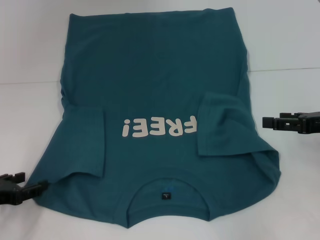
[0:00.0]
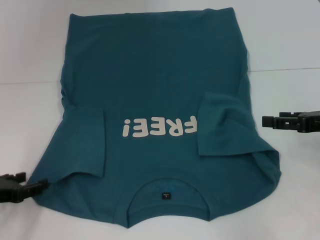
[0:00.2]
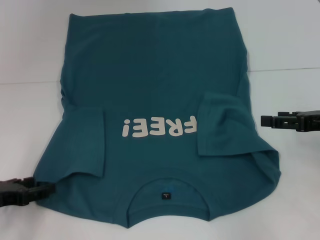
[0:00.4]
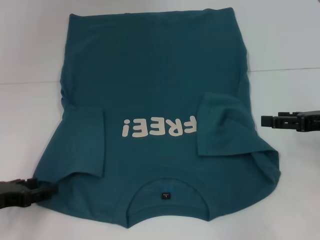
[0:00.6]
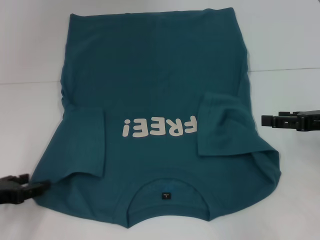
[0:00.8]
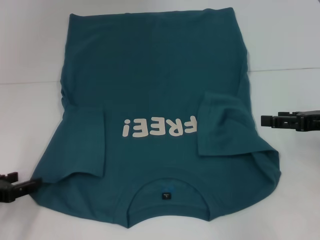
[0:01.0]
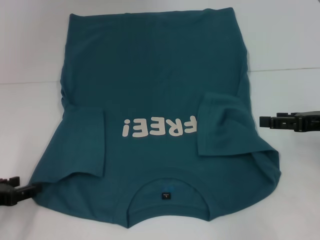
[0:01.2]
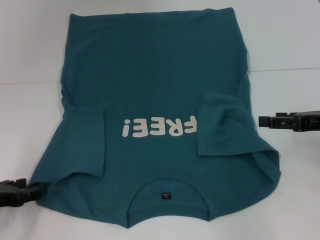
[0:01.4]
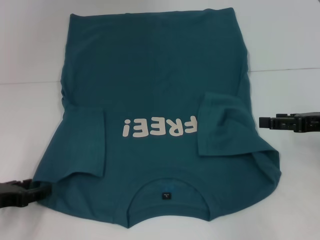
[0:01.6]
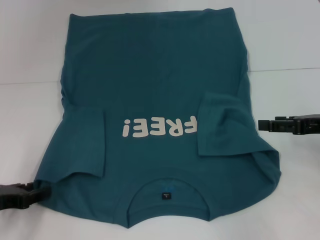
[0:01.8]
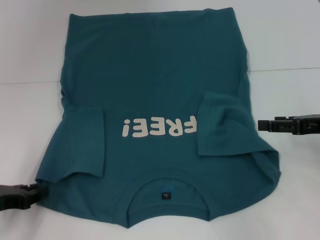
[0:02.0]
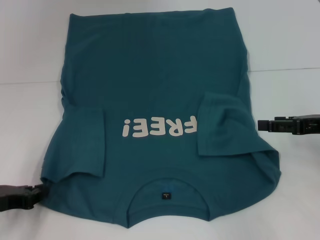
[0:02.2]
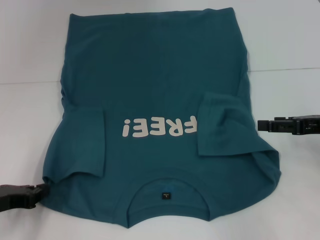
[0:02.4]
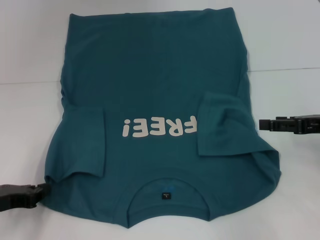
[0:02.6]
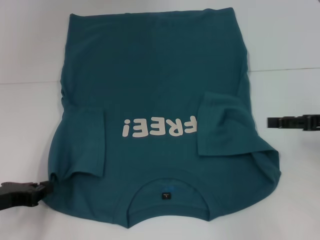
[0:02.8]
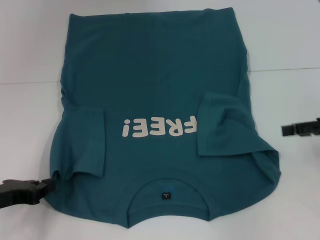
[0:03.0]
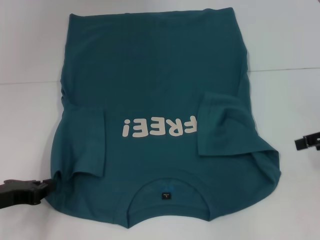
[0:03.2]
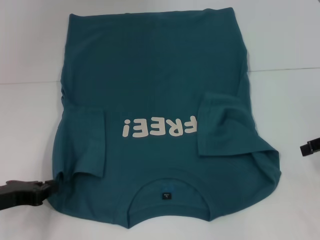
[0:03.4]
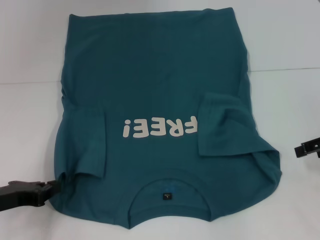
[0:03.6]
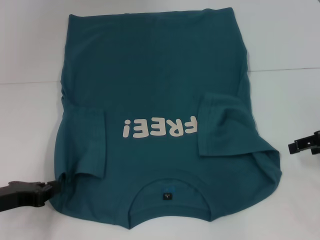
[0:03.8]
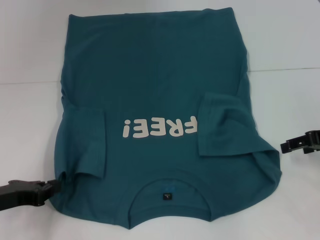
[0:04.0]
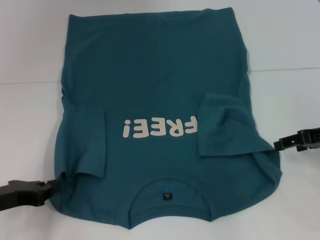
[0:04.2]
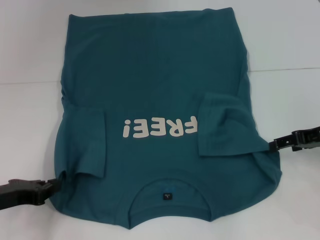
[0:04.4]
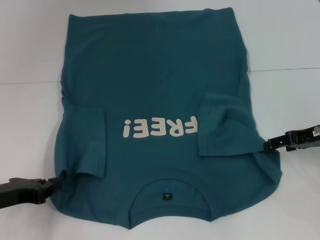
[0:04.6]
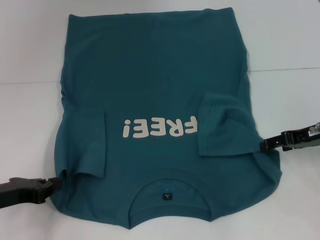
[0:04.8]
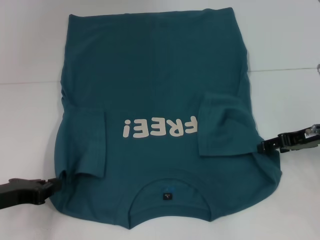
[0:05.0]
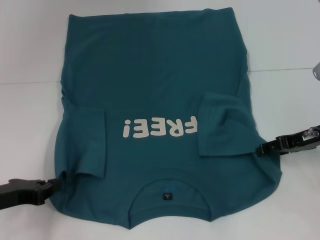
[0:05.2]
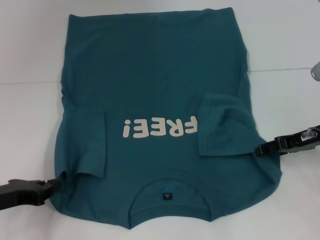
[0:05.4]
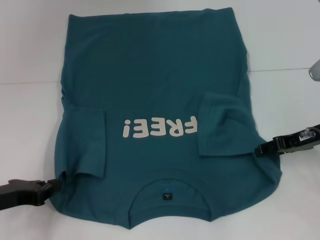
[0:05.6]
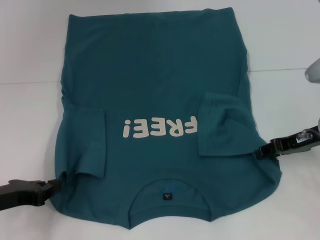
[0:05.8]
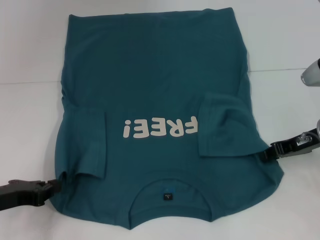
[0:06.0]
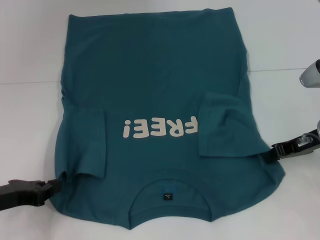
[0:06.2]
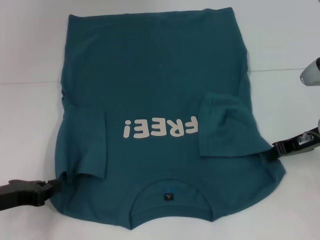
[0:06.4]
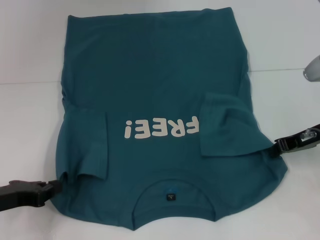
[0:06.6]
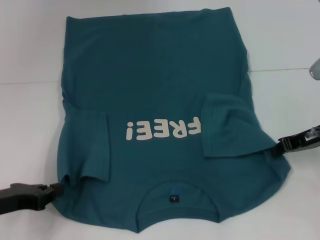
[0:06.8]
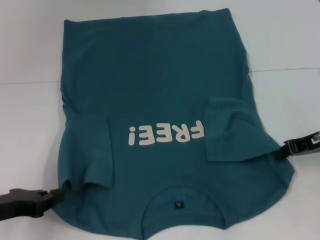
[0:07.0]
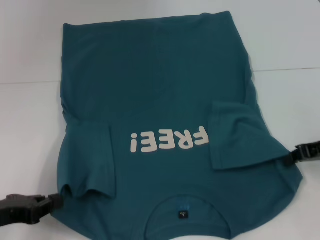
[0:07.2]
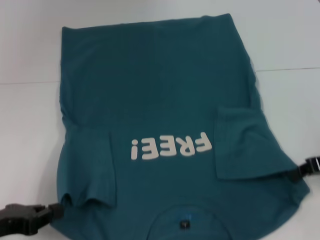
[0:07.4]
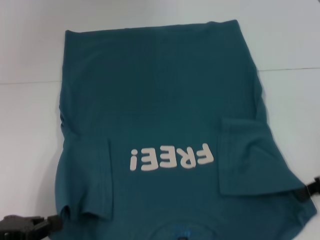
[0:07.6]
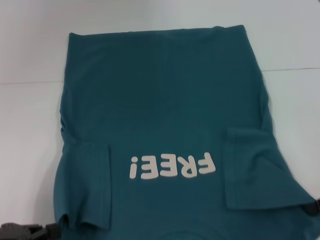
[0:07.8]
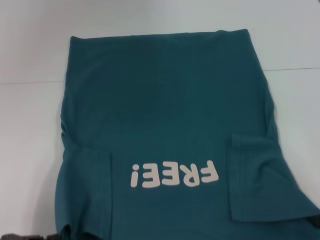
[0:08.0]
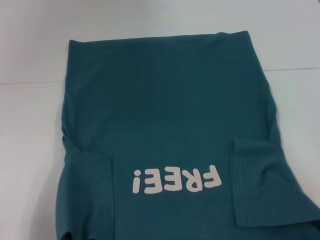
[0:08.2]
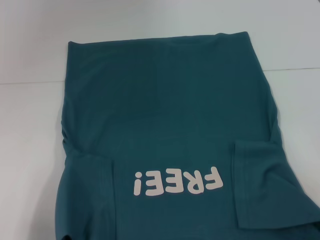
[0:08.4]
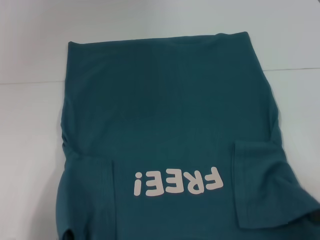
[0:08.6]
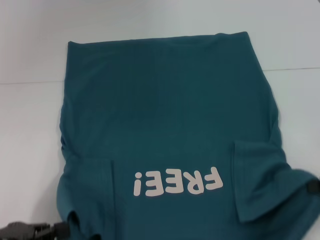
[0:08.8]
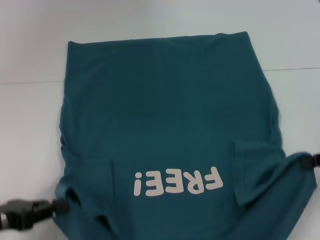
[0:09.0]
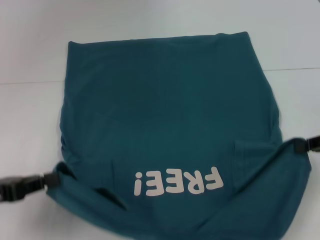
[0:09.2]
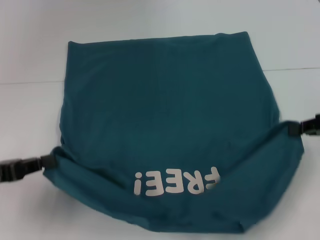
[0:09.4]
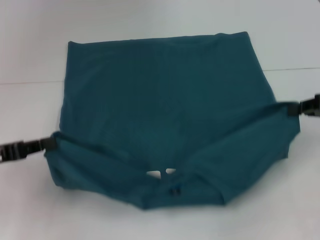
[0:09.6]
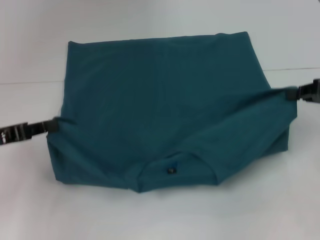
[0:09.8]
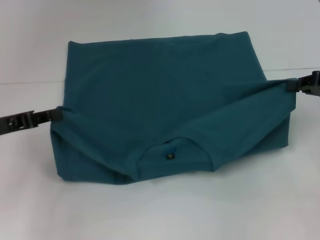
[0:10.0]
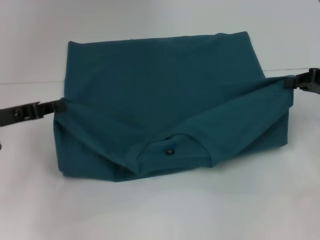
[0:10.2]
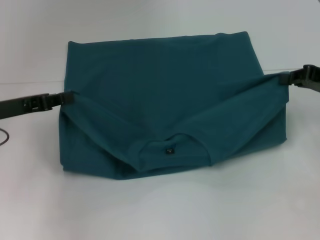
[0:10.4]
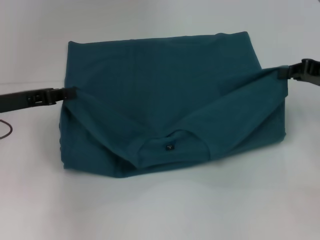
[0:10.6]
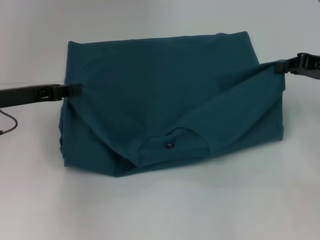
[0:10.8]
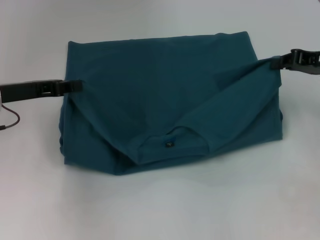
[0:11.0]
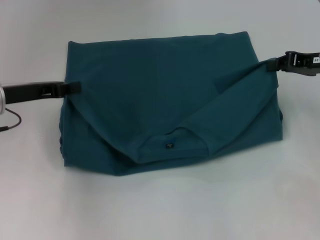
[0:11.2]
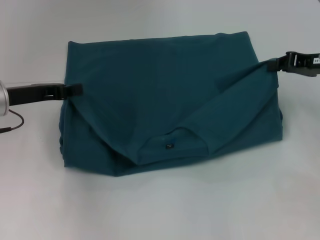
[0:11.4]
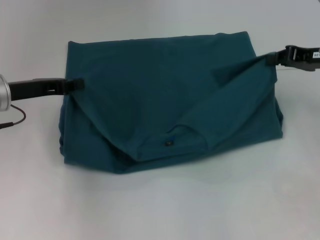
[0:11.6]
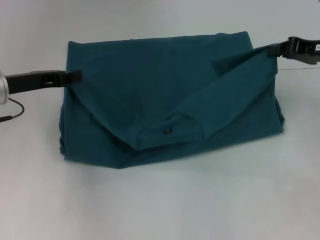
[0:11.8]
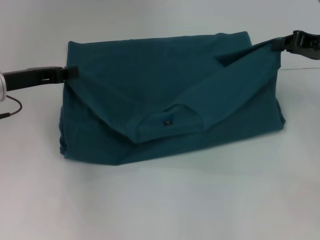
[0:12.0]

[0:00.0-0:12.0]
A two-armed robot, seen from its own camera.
Step, 0:00.0 to 0:02.4: Grab the bottom left corner with your left hand.
Step, 0:02.6 to 0:05.8: Grab the bottom right corner with your right hand.
0:00.0 to 0:01.6: There are only small adjustments of the grippers.
0:01.6 to 0:03.0: The left gripper closes up.
0:03.0 to 0:04.4: The right gripper shifts by roughly 5 cm.
0:04.4 to 0:06.0: The right gripper closes up.
0:06.0 to 0:07.6: The right gripper moves backward and to the right, roughly 10 cm, and closes up, while the left gripper moves backward, approximately 5 cm.
0:09.0 to 0:10.4: The left gripper moves forward, approximately 15 cm; the right gripper travels forward by roughly 10 cm.
0:10.4 to 0:12.0: The left gripper ends up about 5 cm from where it was.

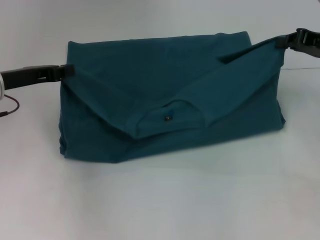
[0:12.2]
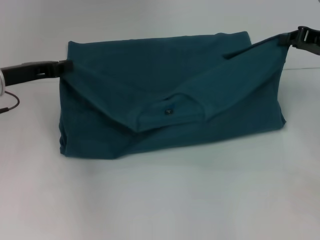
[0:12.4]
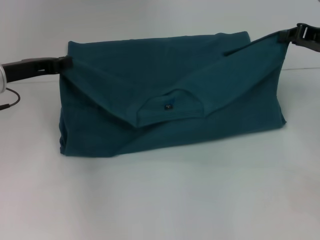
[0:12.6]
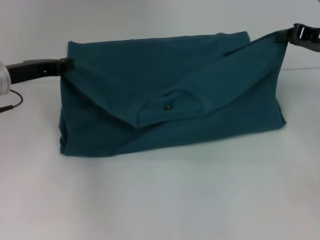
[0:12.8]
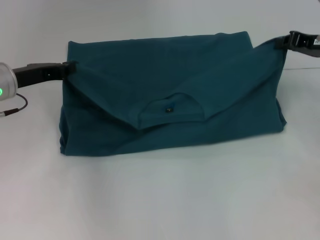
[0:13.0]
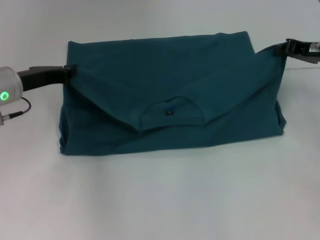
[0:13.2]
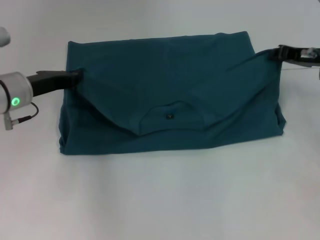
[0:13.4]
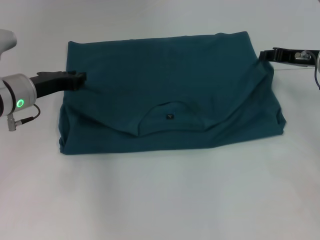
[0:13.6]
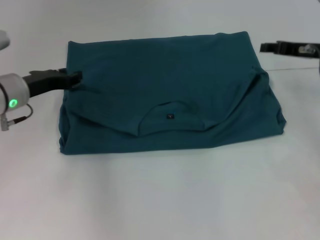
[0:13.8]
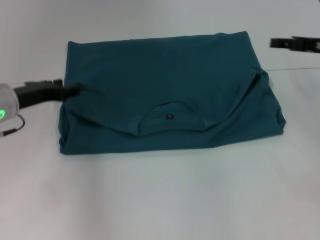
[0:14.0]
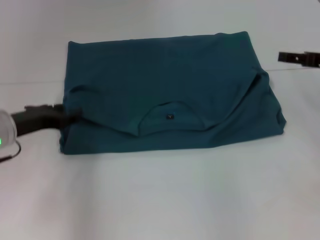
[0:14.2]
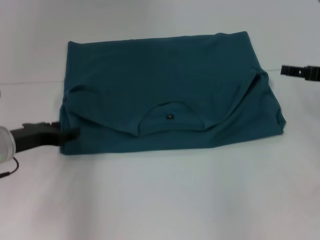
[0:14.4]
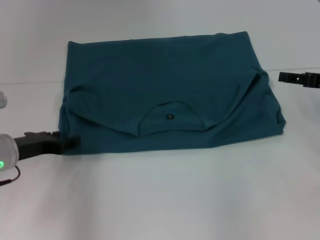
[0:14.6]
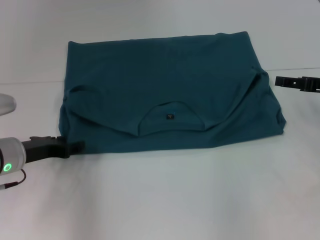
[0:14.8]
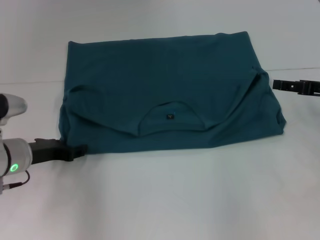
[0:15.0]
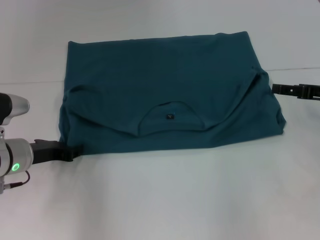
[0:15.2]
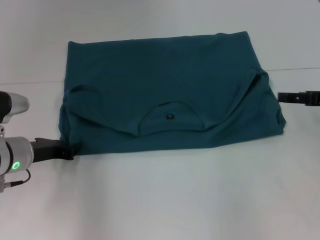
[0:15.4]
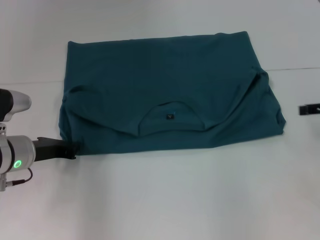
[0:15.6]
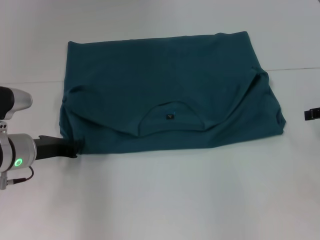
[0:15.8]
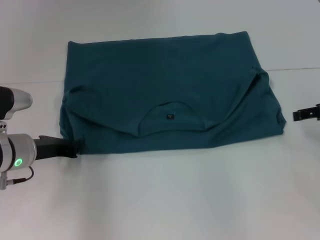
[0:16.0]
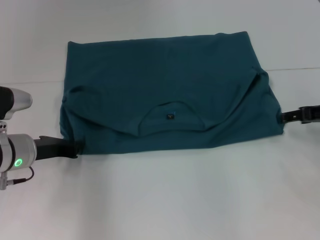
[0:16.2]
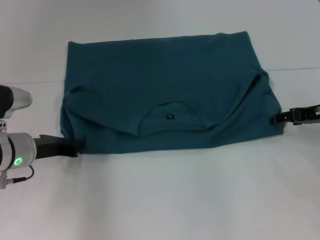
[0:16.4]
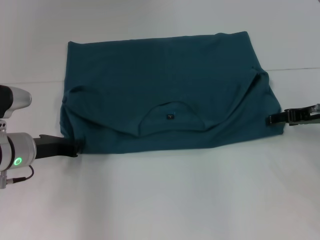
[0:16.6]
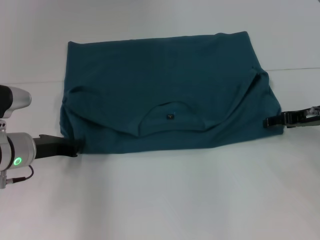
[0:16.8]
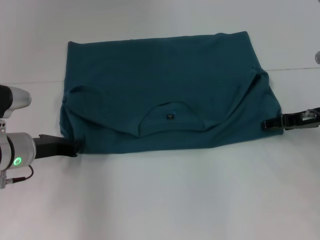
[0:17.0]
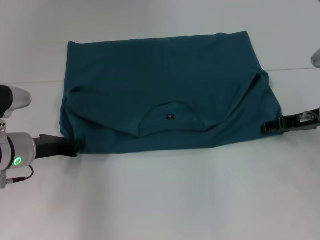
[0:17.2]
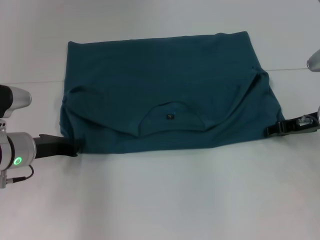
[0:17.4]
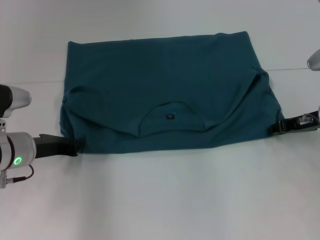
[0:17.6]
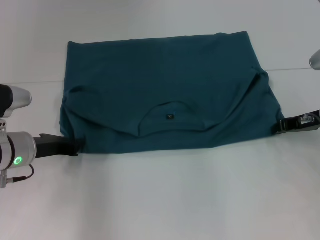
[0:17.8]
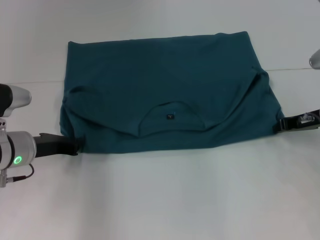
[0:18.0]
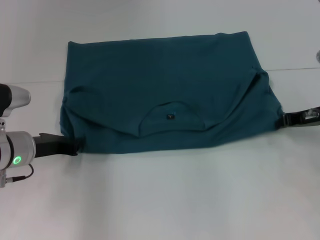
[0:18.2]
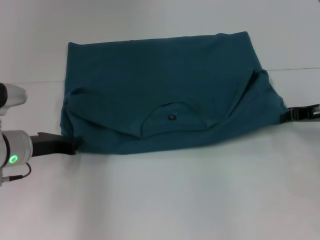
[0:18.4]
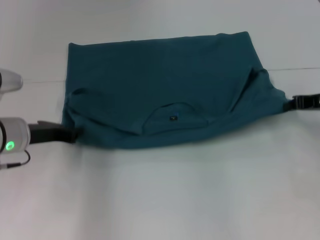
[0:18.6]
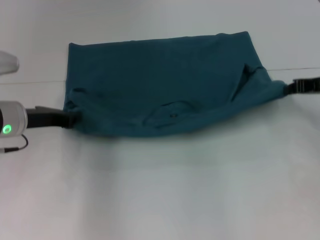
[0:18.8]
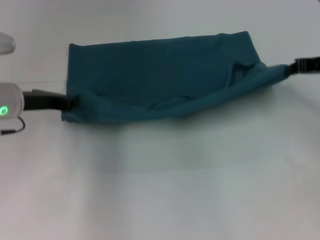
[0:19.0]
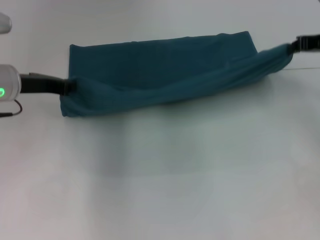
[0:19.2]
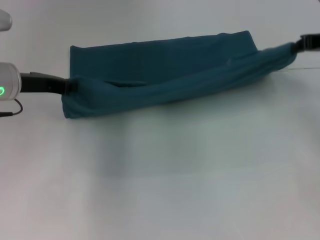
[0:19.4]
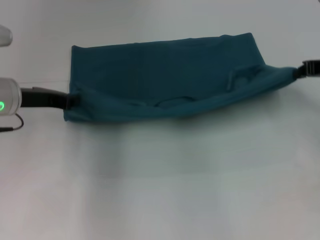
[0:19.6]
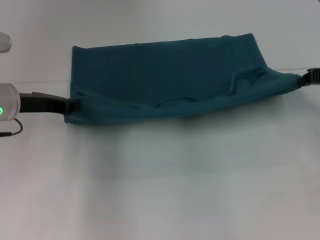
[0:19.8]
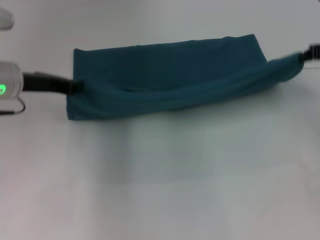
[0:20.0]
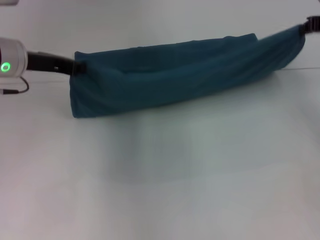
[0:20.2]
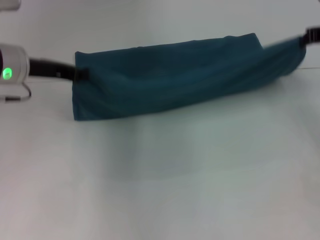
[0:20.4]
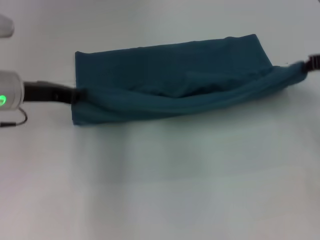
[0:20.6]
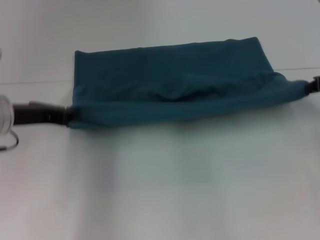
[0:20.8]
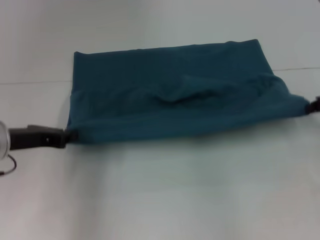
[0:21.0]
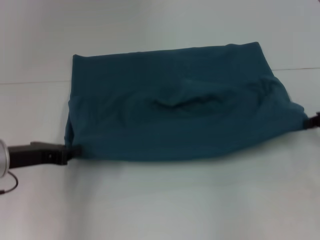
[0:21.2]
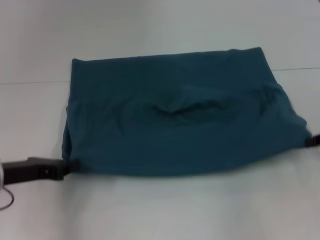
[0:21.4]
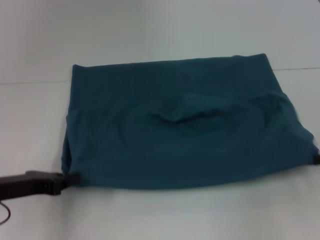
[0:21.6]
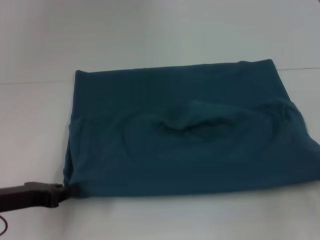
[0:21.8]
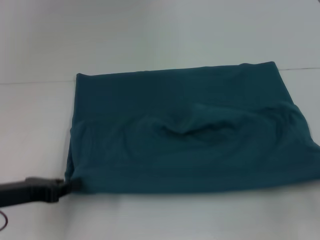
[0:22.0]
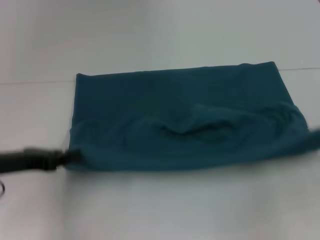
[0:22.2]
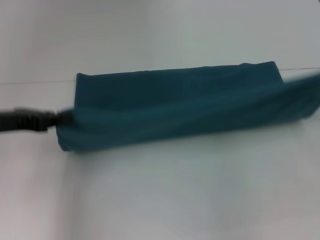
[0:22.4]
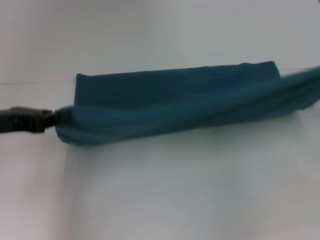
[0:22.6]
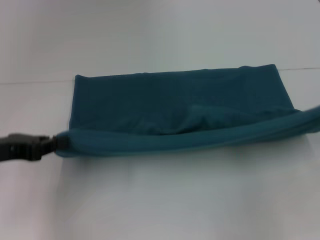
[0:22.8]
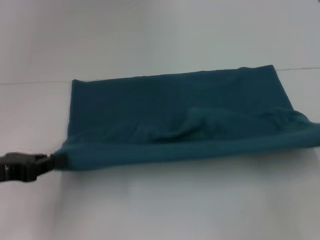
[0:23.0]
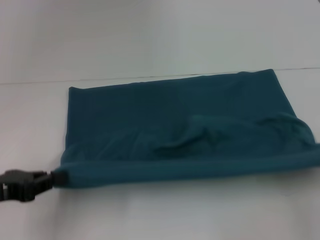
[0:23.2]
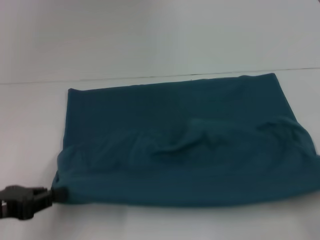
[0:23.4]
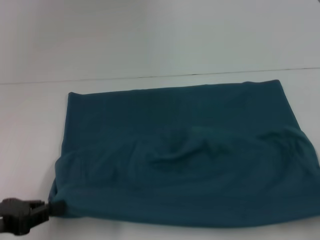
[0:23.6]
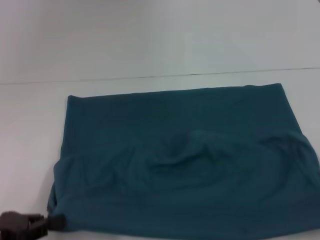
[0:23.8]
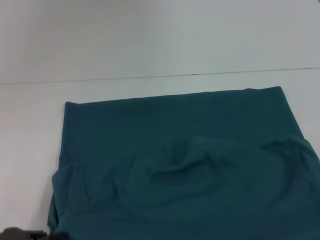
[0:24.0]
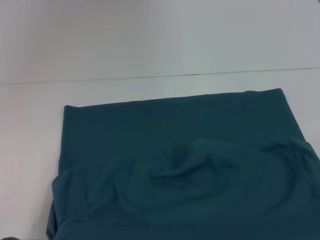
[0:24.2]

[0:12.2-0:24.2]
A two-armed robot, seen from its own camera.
Step, 0:13.8 to 0:21.6: Pull the clothes with your left hand.
Step, 0:13.8 to 0:21.6: Pull the clothes with your right hand.
0:12.2 to 0:13.8: The grippers move only a little.
0:13.8 to 0:15.2: The left gripper shifts about 10 cm backward and downward, while the right gripper travels backward by some 10 cm, and opens its fingers.
0:15.2 to 0:16.6: The left gripper closes up.
0:16.6 to 0:18.2: The right gripper closes up.
0:18.2 to 0:19.8: Both grippers move upward, about 10 cm.
0:19.8 to 0:21.2: Both grippers travel together backward, approximately 5 cm.
0:21.2 to 0:22.6: Both grippers travel together upward, roughly 5 cm.
0:22.6 to 0:24.2: The grippers both shift backward and downward by about 20 cm.
